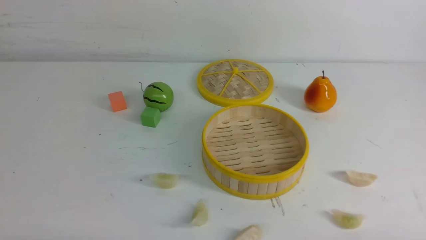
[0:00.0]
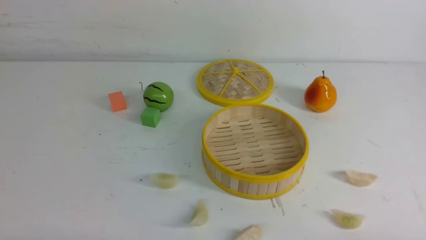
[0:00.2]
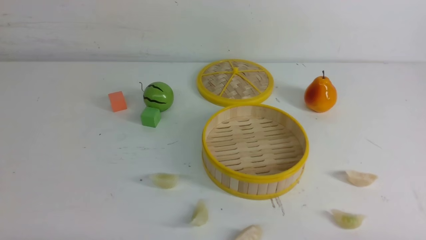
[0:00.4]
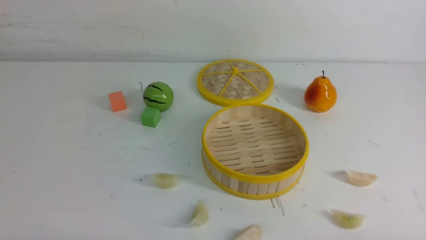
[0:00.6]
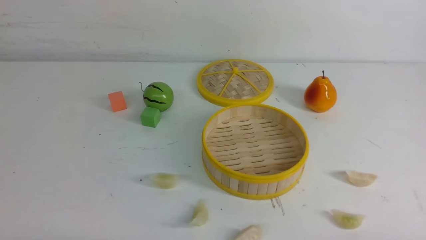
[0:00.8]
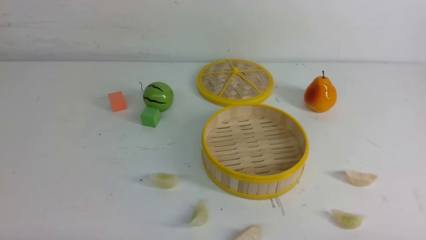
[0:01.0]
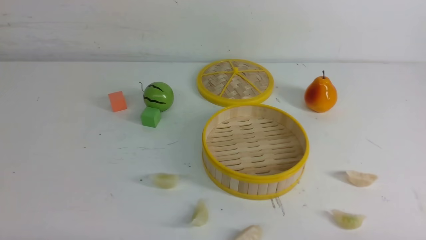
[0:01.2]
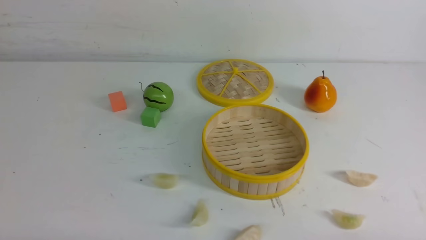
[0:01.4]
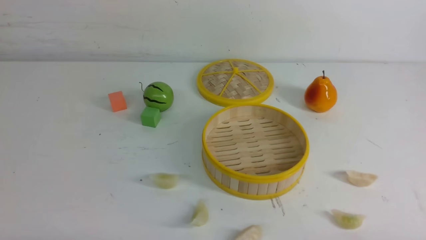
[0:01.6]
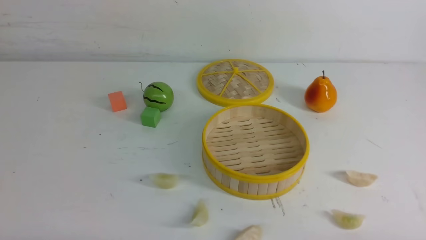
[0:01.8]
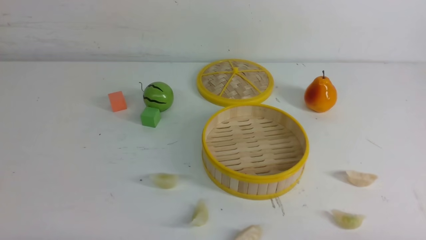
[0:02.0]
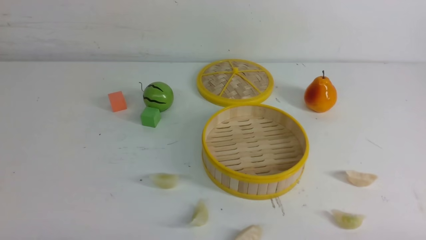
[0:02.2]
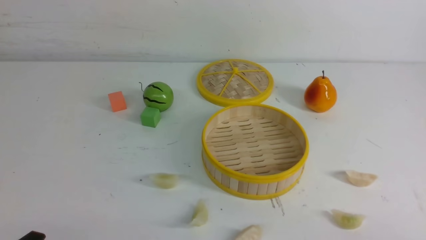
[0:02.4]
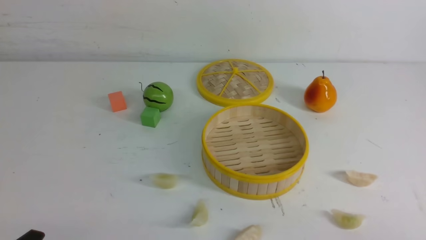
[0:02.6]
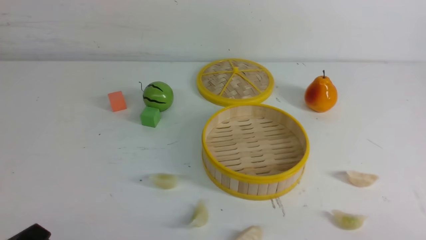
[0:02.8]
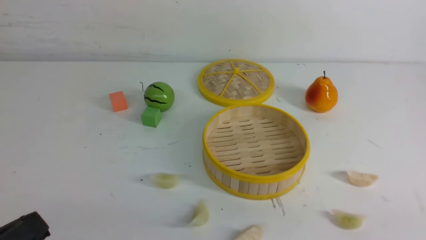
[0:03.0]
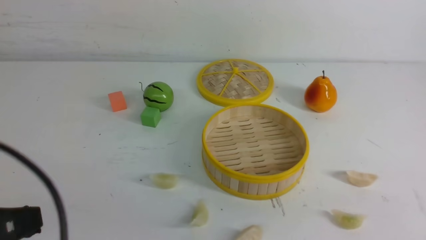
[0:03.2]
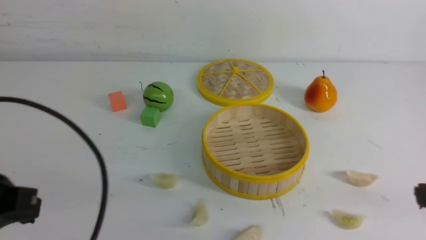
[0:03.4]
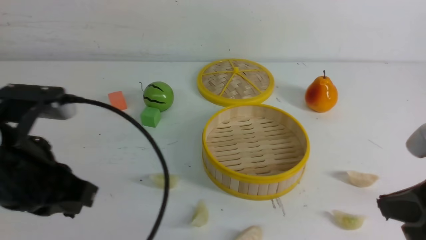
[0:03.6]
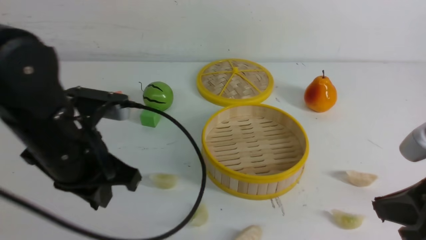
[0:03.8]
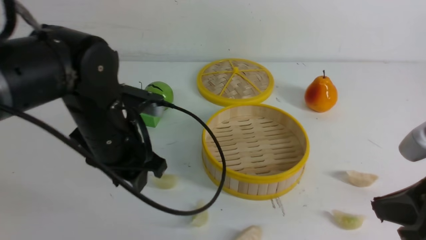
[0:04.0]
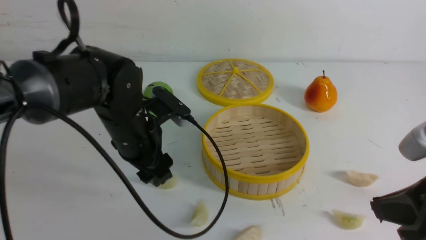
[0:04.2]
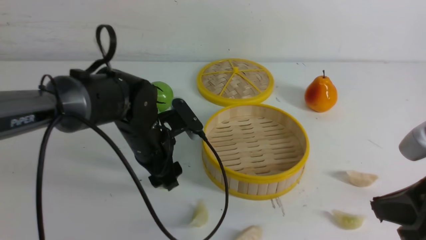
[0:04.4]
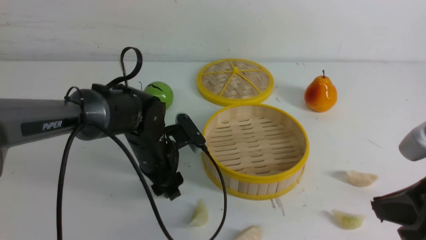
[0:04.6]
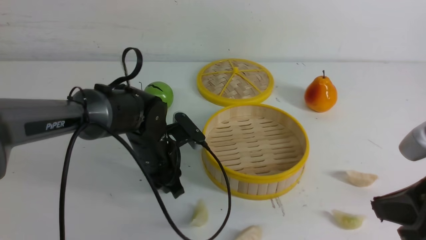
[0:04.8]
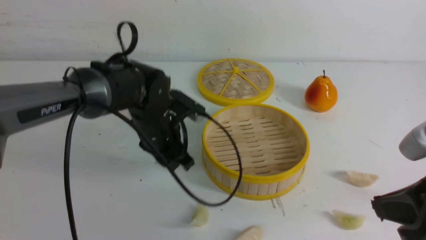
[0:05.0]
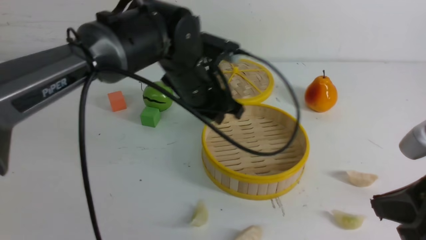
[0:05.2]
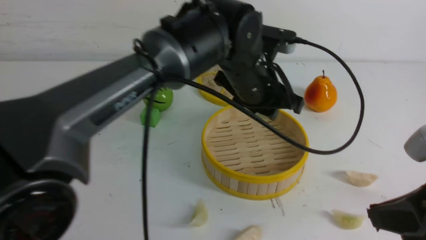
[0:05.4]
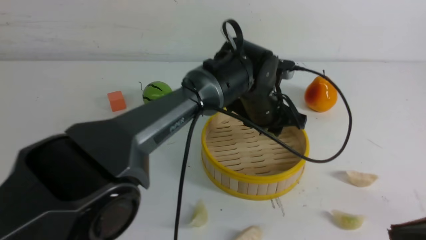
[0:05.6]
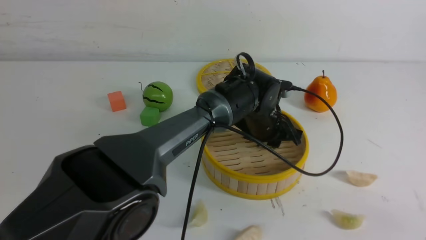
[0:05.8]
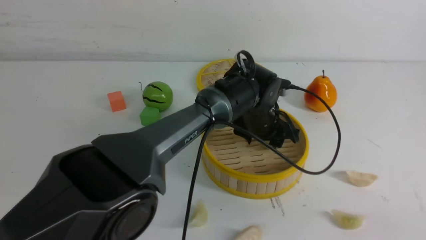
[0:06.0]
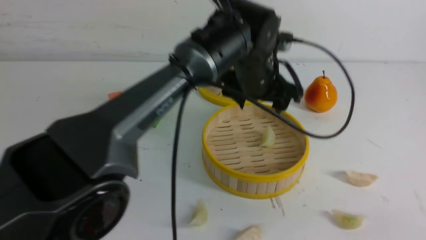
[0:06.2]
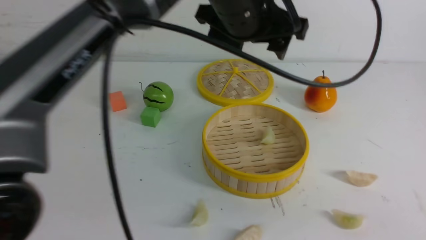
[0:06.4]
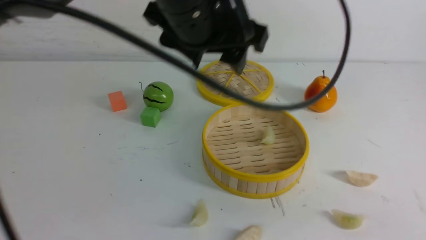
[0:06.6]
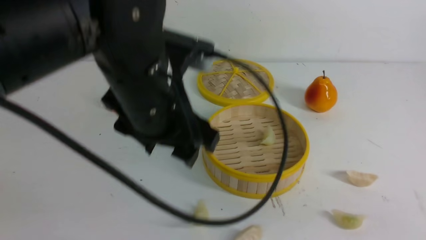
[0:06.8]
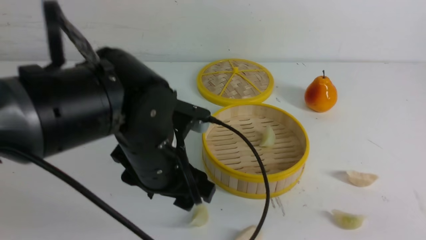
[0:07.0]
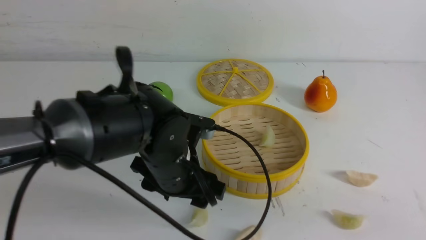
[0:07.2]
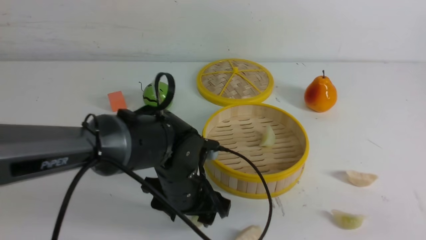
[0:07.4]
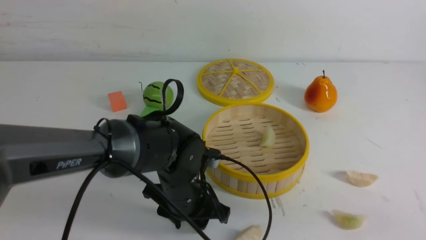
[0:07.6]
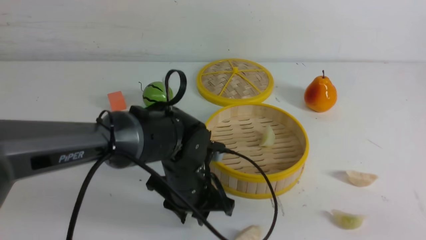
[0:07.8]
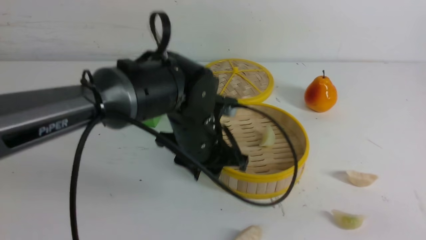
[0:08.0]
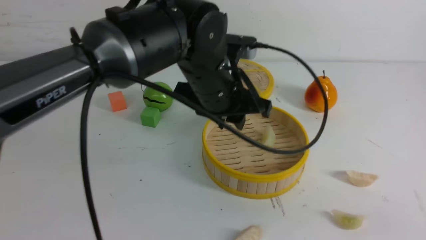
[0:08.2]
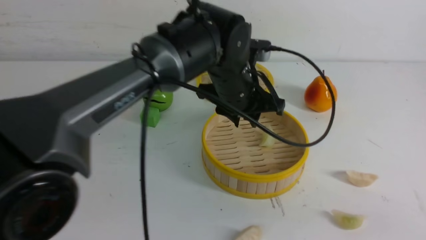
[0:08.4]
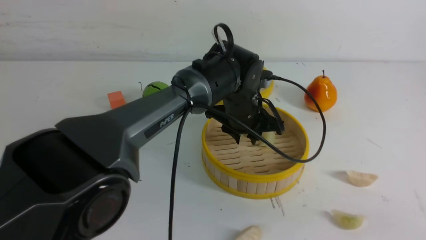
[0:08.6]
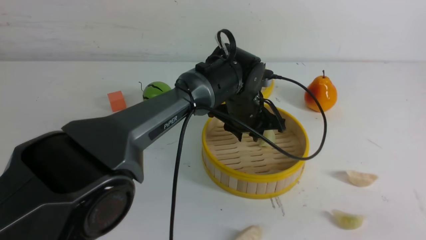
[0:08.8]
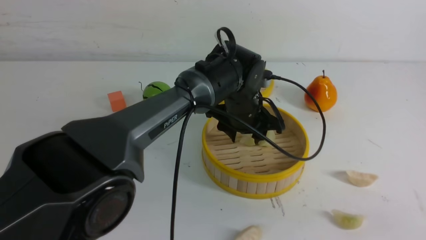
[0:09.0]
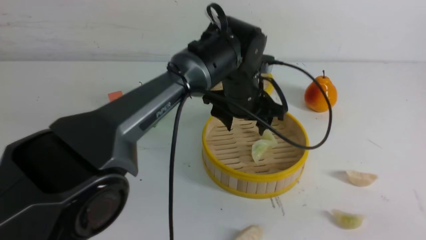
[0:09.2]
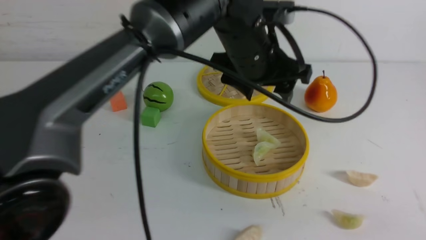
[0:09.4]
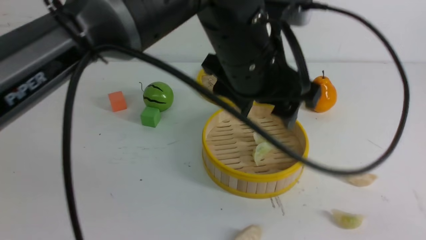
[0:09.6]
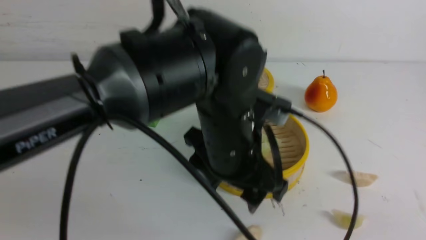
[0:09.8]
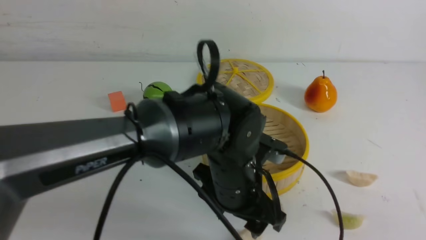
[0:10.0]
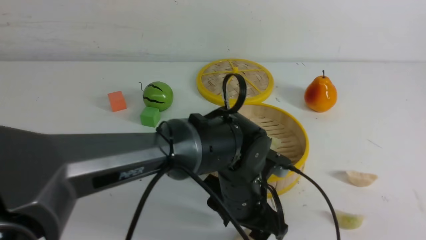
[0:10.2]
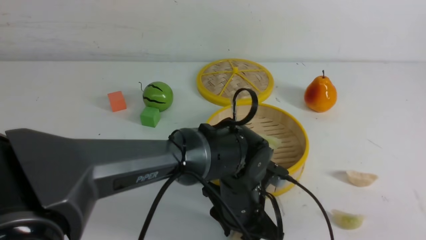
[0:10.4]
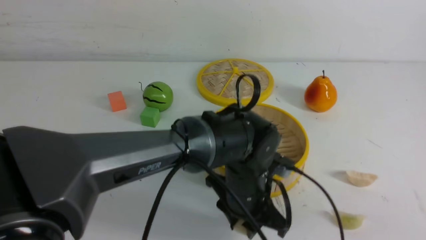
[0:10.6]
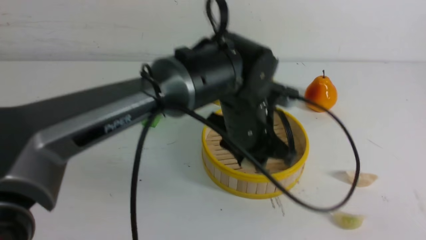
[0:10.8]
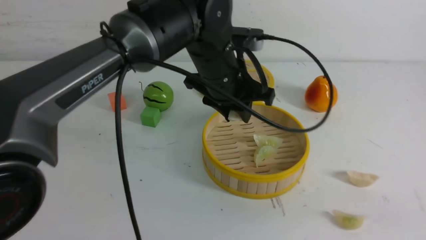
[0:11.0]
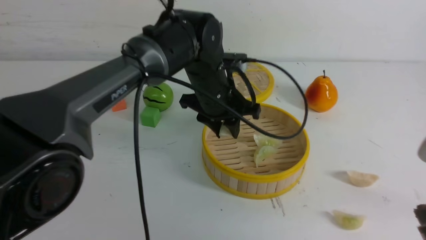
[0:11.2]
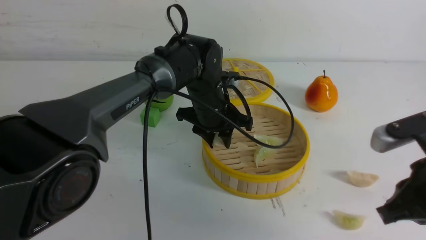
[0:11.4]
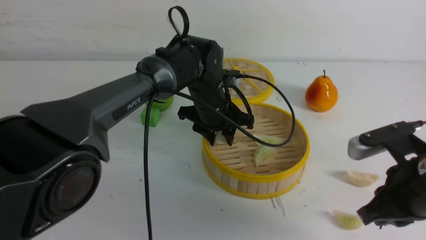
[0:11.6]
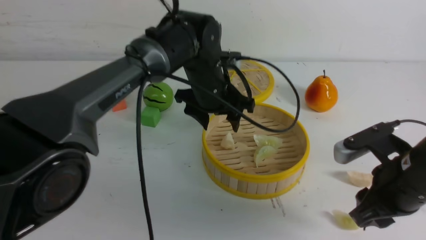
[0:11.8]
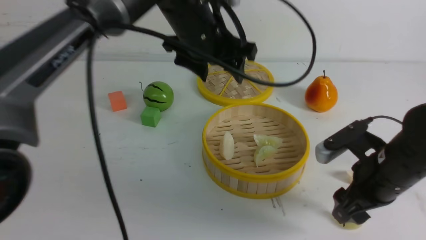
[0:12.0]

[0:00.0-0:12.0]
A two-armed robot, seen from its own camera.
Task of the whole recording: put the dumplings into the steamer on the white table.
Step, 0:00.0 to 0:04.8: use the left arm to grab a dumpling.
Step, 0:05.0 to 0:06.0: use the left arm to put the dumpling into the steamer.
Step, 0:06.2 to 0:07.6: use the left arm to grab a dumpling.
Step, 0:08.0 to 0:08.8: use the left arm to put the dumpling into the steamer.
Step, 0:09.2 to 0:10.4: use the left arm to grab a dumpling.
Step, 0:10.8 to 0:11.6: use the left arm to put the dumpling into the steamer.
0:00.0 to 0:01.6: Both grippers stay about where they are.
0:01.6 to 0:03.0: The left gripper shifts roughly 10 cm upward.
0:03.0 to 0:04.4: The left gripper shifts approximately 30 cm forward and to the right, and opens. The right gripper goes roughly 10 cm forward and to the left.
0:04.4 to 0:06.0: The left gripper goes about 20 cm to the right, and closes, then reopens. The right gripper heads backward, covering about 10 cm.
0:06.0 to 0:07.6: The left gripper travels backward and to the left by about 15 cm, and reaches approximately 15 cm upward, then returns.
0:07.6 to 0:09.0: The left gripper shifts roughly 15 cm forward, to the right and upward.
0:09.0 to 0:10.4: The left gripper is displaced backward and downward by approximately 15 cm.
0:10.4 to 0:12.0: The right gripper heads forward and downward, covering about 25 cm, and opens its fingers. The left gripper goes up and down, approximately 20 cm each way, reversing 2 times.

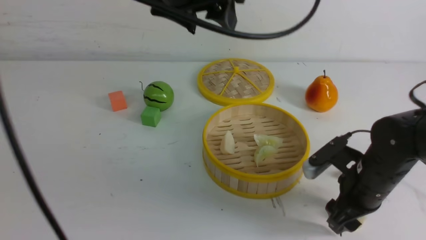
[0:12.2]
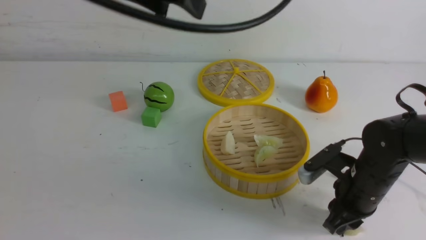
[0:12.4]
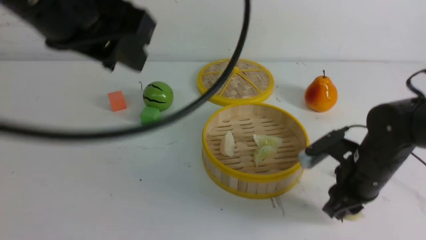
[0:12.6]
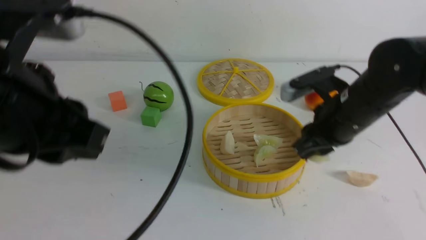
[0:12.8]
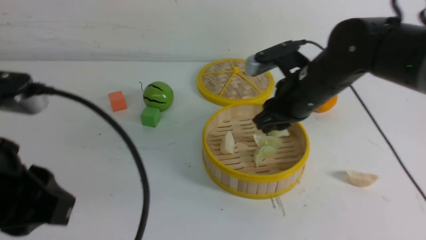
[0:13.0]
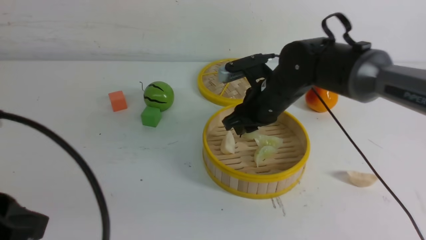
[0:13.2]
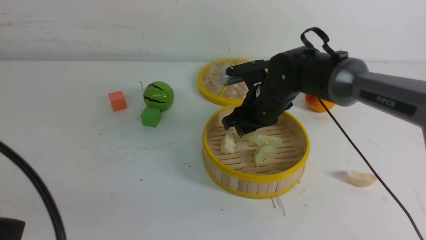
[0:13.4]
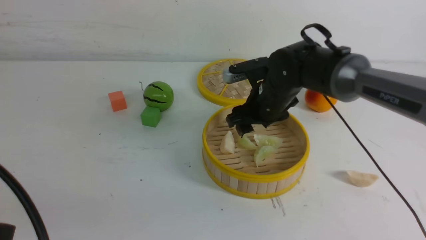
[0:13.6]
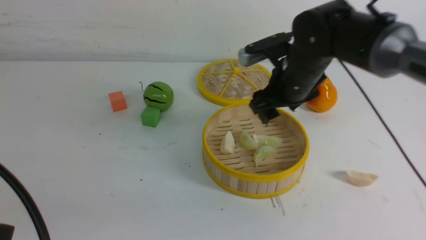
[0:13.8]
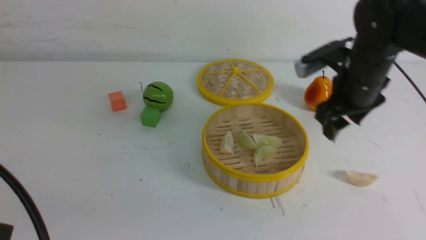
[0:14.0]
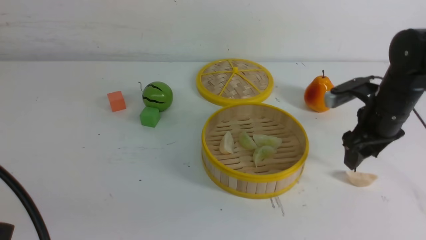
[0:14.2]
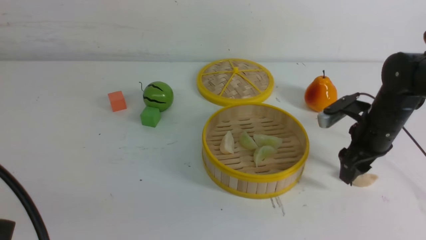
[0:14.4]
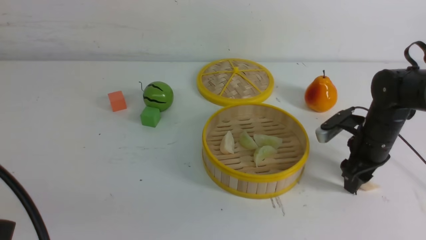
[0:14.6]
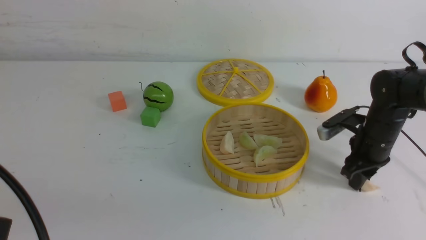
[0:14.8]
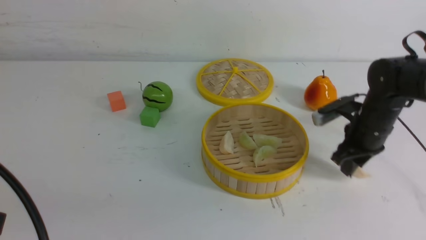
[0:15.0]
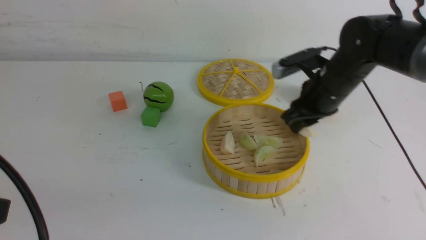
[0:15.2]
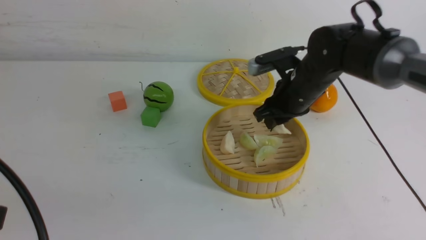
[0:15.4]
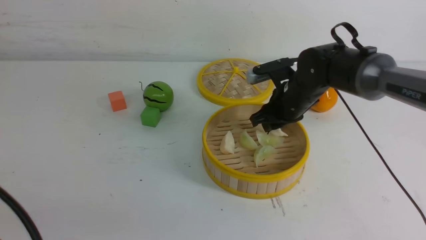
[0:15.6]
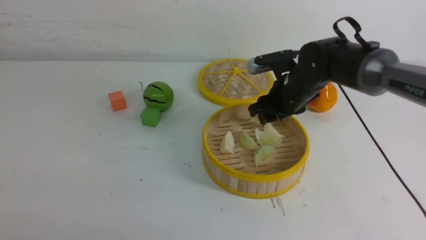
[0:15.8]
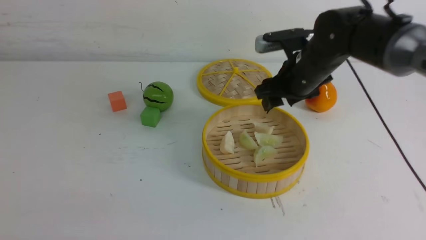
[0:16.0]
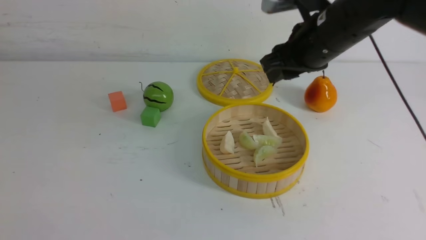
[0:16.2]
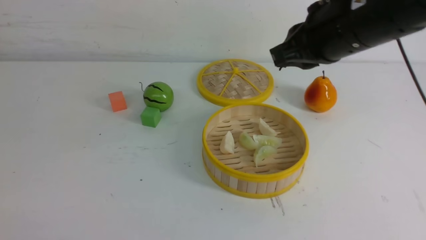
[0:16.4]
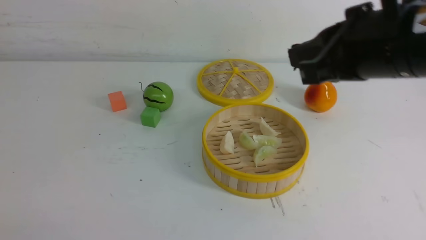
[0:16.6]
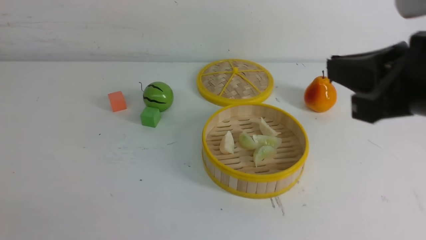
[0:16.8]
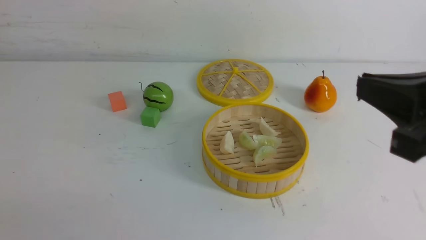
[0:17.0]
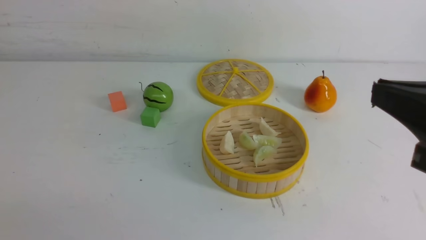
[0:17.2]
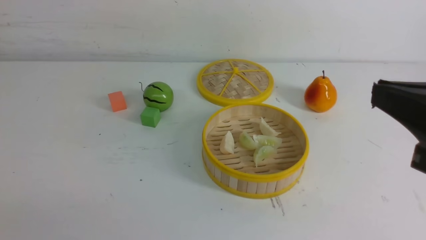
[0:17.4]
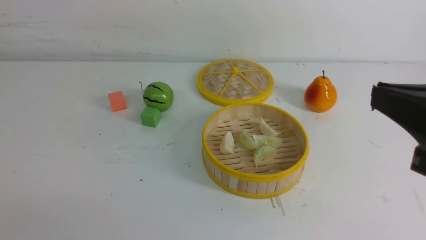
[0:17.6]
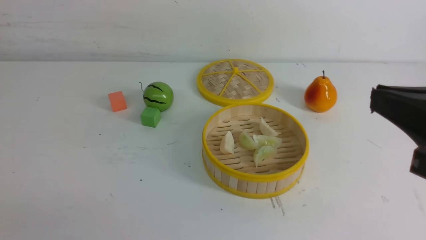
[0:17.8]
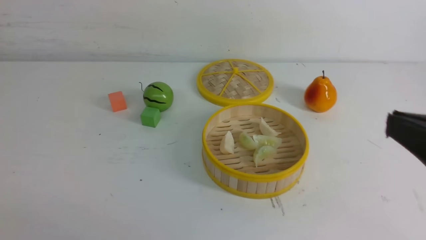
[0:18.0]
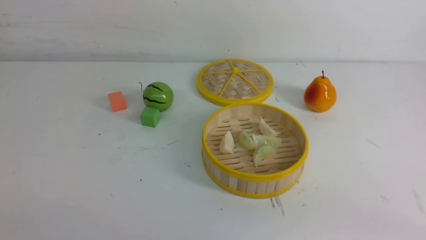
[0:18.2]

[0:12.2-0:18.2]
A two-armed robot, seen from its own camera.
Task of the whole recording: put the dumplings into the steamer on the white table.
Step, 0:12.8 to 0:13.4: use the right arm to put the dumpling into the steamer.
Step, 0:13.6 to 0:14.8: use the right arm to grab a dumpling.
Step, 0:15.0 to 0:15.8: use the right arm to put the dumpling into the steamer.
0:12.2 to 0:13.8: The right gripper is displaced forward, upward and to the left by some 15 cm, and closes, then reopens. Meanwhile the left gripper heads backward and to the left, covering approximately 30 cm, and closes its fingers.
0:13.8 to 0:15.2: The right gripper reaches about 15 cm to the right, then returns, and closes up.
0:15.2 to 0:16.6: The left gripper is displaced backward, downward and to the left by some 10 cm, and closes its fingers; the right gripper moves backward and upward, approximately 25 cm, and closes up.
0:16.6 to 0:18.2: The right gripper heads backward, downward and to the right, covering roughly 20 cm.
